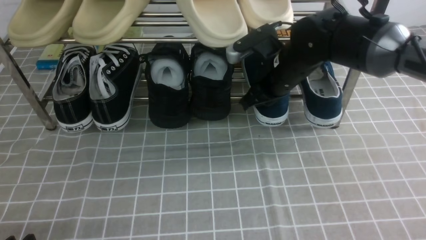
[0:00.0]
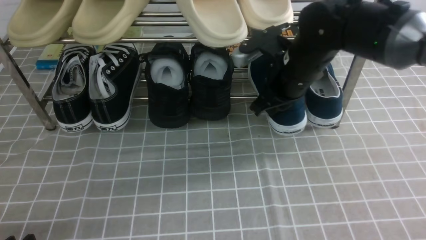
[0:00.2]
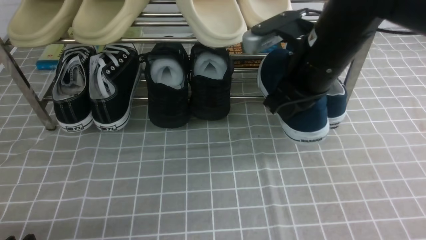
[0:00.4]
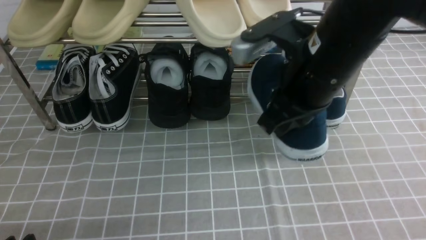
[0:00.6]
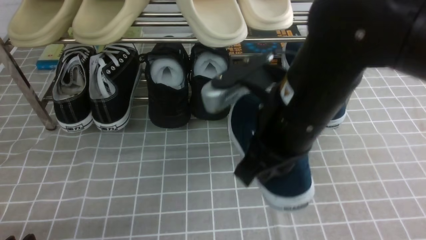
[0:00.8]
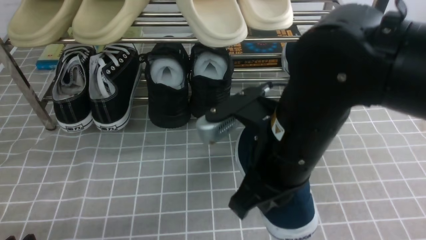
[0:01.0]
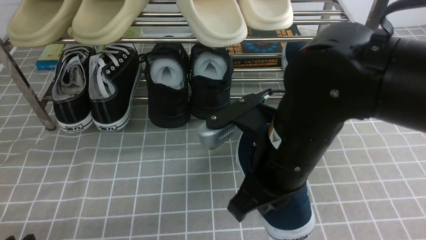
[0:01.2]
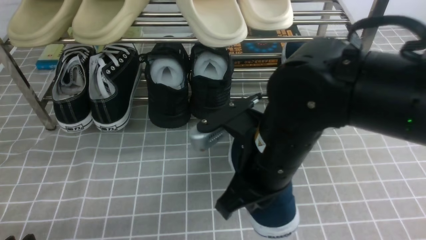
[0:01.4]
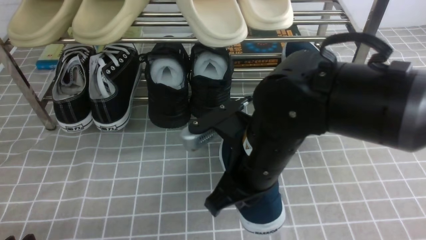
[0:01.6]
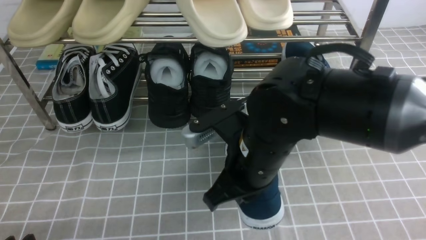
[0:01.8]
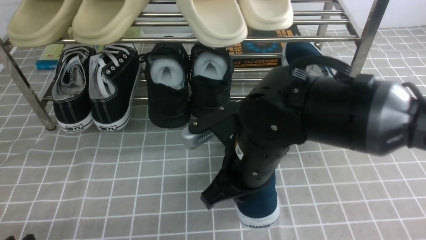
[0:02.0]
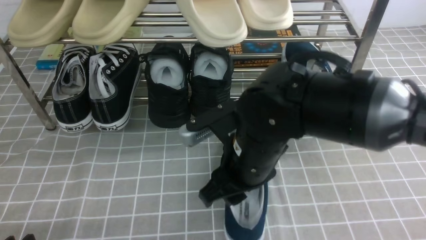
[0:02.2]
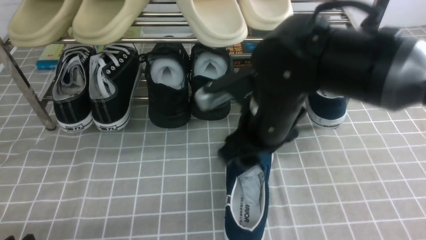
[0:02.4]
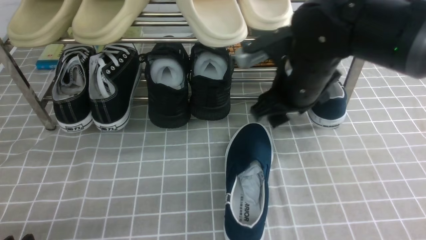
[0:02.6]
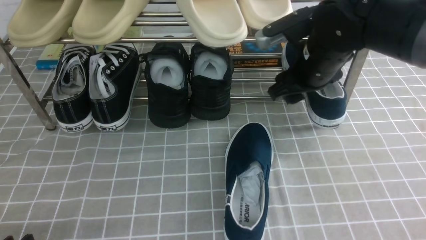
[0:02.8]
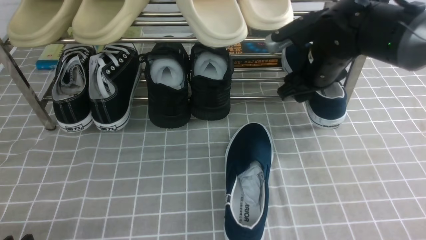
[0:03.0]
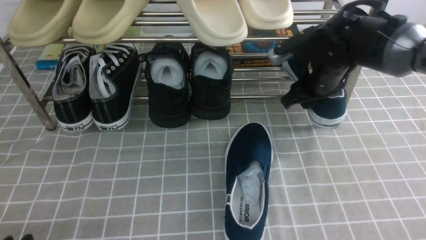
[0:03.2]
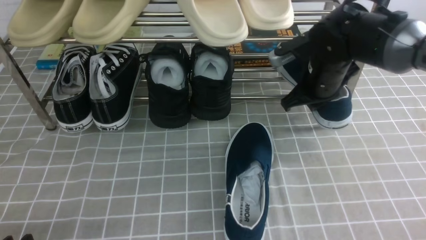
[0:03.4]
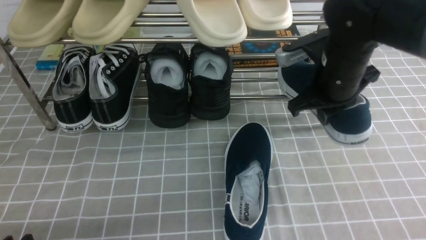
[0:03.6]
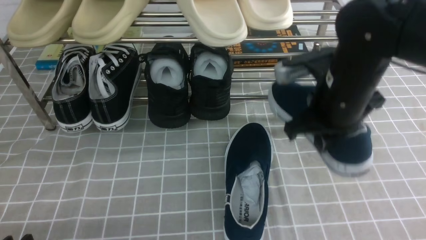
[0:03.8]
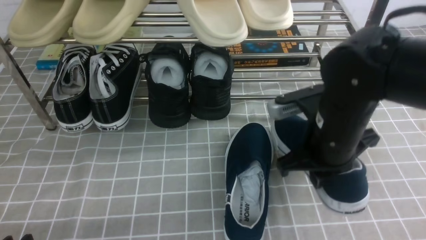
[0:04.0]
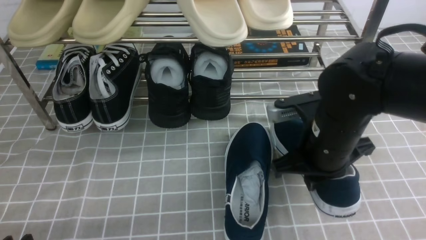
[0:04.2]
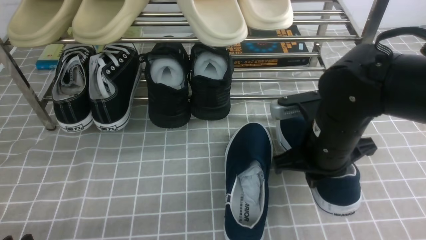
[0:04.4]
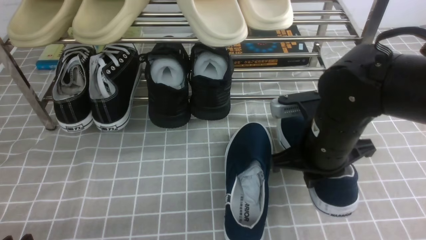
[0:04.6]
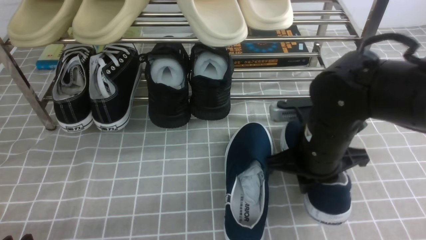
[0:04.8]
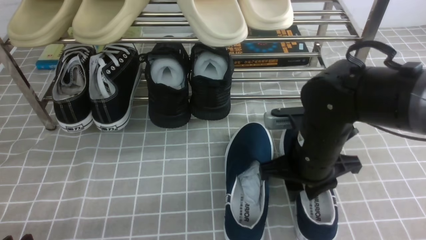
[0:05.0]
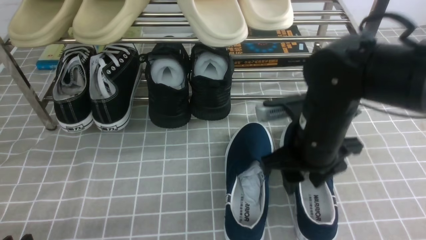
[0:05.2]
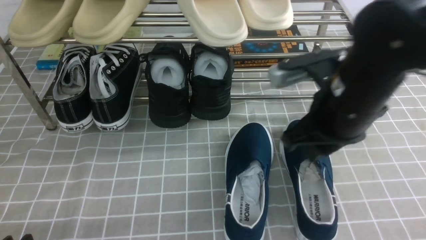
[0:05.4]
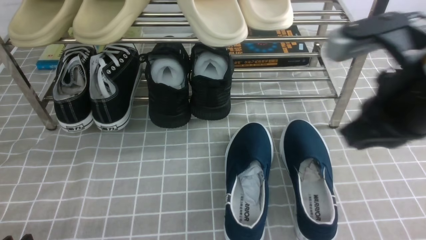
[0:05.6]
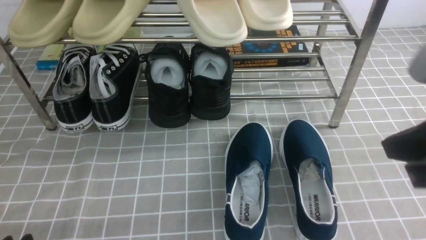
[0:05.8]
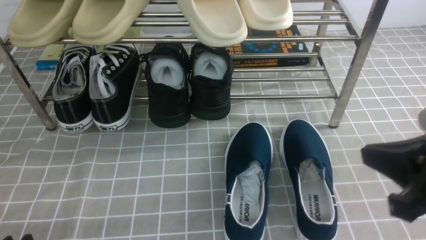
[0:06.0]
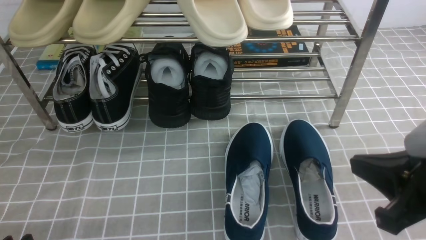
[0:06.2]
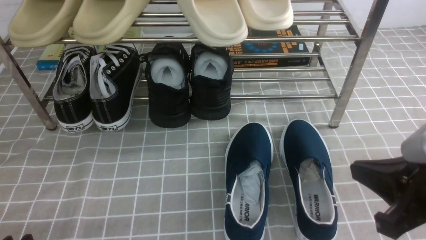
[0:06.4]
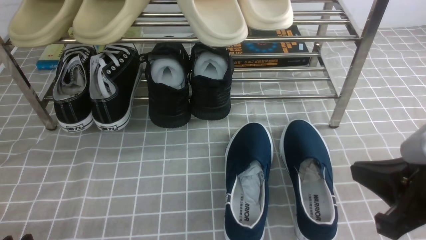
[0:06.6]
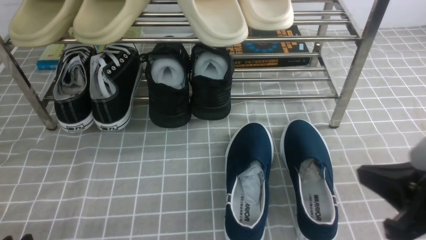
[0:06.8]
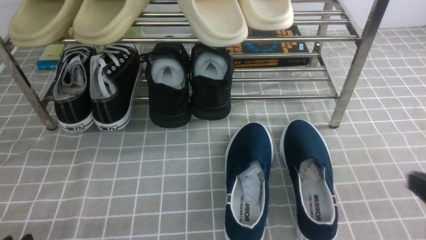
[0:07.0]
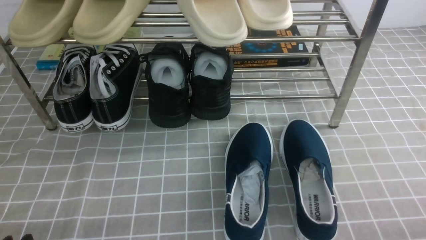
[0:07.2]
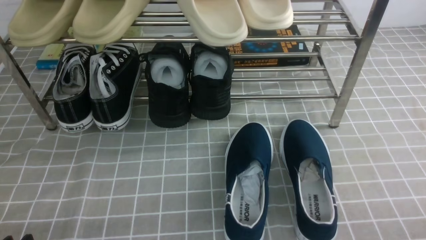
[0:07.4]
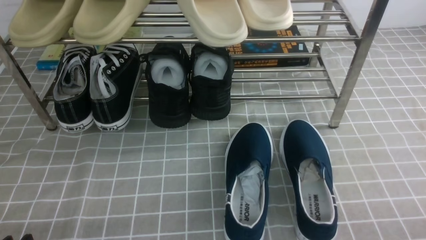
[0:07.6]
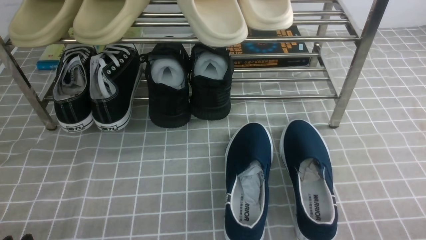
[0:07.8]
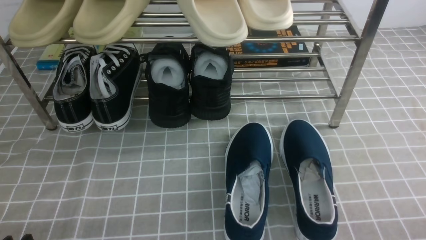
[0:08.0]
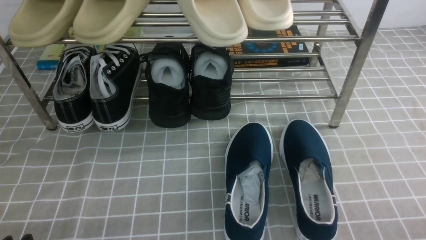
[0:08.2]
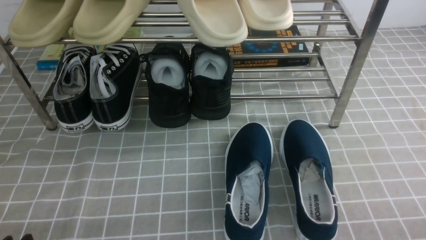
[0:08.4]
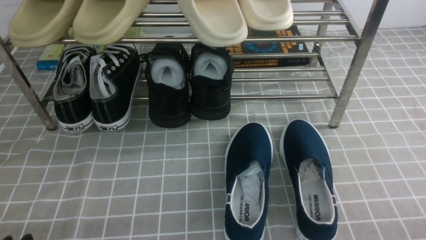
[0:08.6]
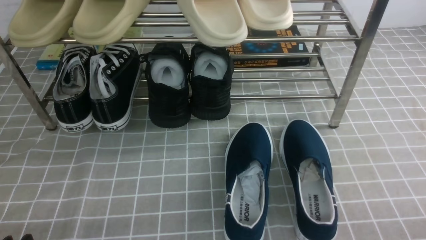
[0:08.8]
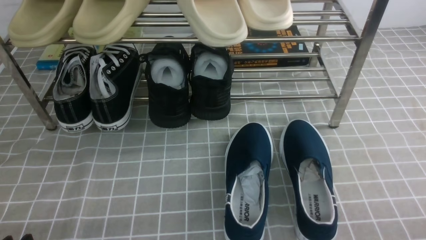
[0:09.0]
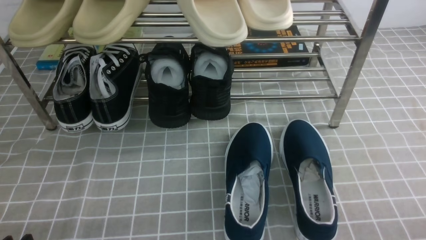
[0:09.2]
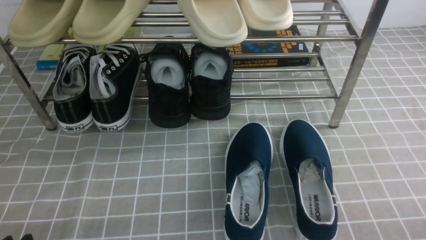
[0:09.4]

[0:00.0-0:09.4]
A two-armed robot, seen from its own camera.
Step, 0:00.4 to 0:02.4: use the right arm to take out the clamped shoe from the shoe rack and put it down.
Step, 0:02.6 to 0:03.4: use the right arm to clamp a shoe on the right side of the shoe rack.
Step, 0:03.6 to 0:05.0: use the right arm to take out the clamped shoe from the shoe rack and put it down.
0:00.0 to 0:01.6: The right gripper heads backward and to the left, covering about 20 cm.
0:01.6 to 0:03.2: The right gripper shifts approximately 20 cm forward and to the right, and opens.
0:03.2 to 0:04.8: The right gripper moves backward, approximately 15 cm.
0:04.8 to 0:06.2: The right gripper is displaced backward, to the right and upward by roughly 20 cm, and opens and closes again.
0:06.2 to 0:07.8: The right gripper is displaced downward, to the right and backward by roughly 15 cm.
0:07.8 to 0:09.4: Both grippers stay about where they are.
